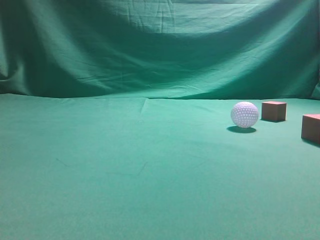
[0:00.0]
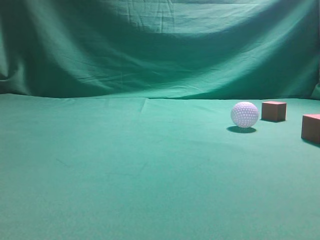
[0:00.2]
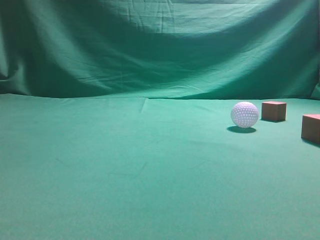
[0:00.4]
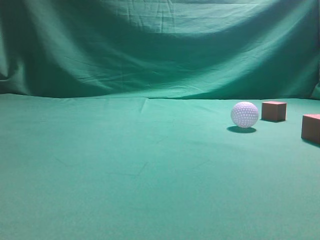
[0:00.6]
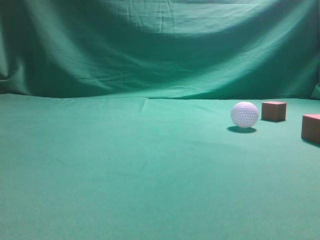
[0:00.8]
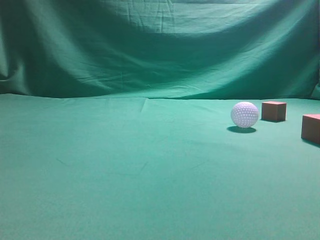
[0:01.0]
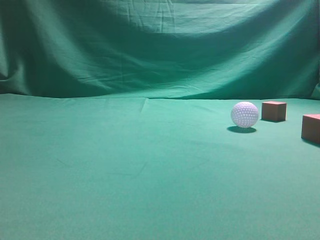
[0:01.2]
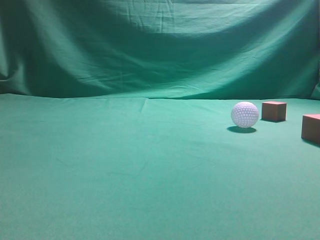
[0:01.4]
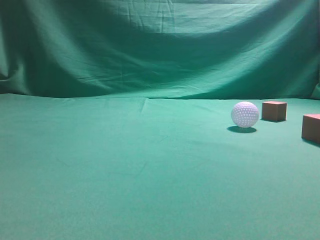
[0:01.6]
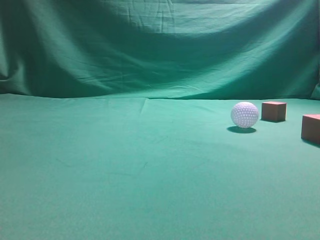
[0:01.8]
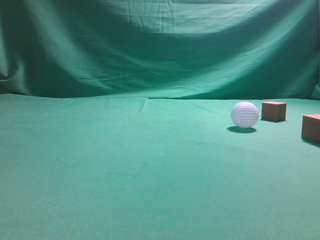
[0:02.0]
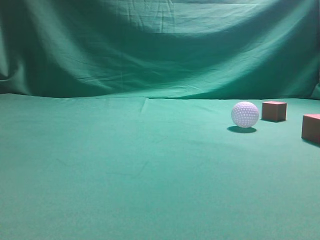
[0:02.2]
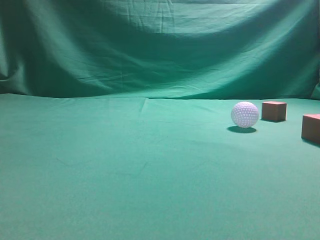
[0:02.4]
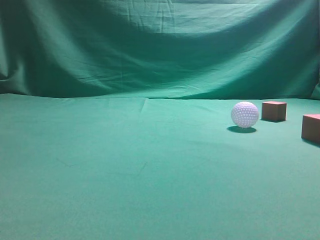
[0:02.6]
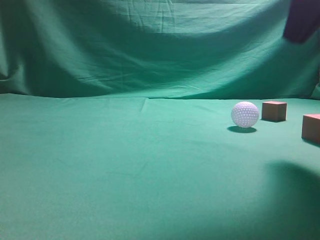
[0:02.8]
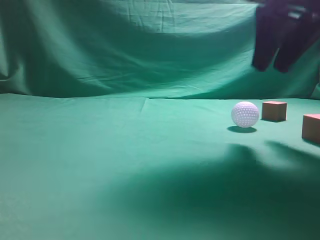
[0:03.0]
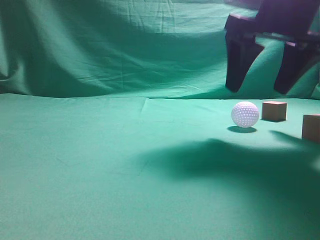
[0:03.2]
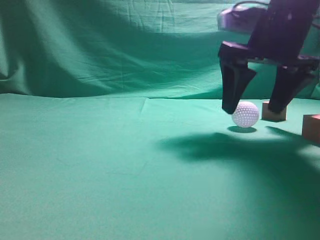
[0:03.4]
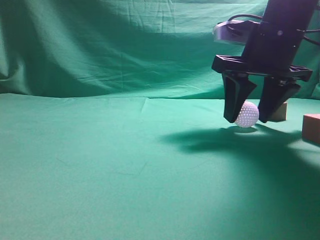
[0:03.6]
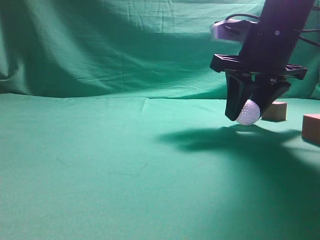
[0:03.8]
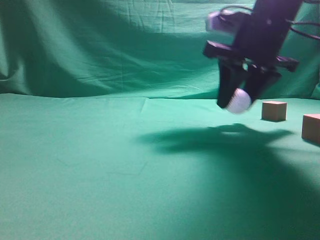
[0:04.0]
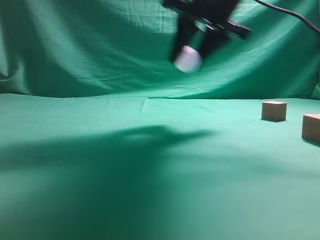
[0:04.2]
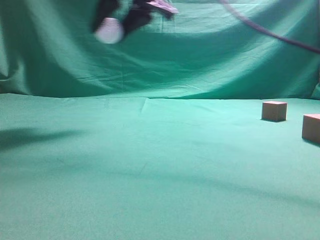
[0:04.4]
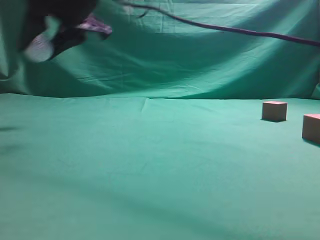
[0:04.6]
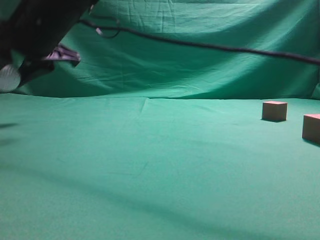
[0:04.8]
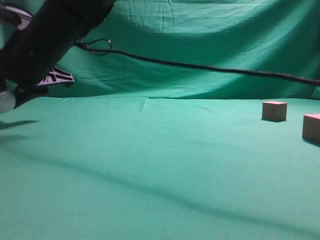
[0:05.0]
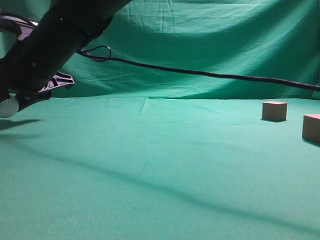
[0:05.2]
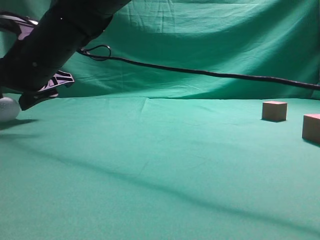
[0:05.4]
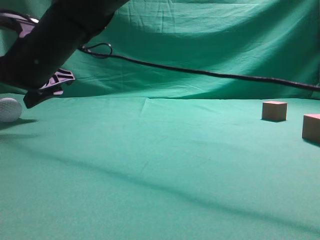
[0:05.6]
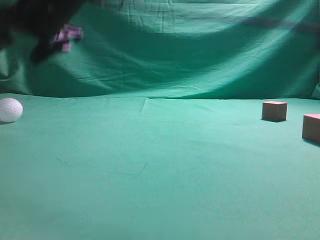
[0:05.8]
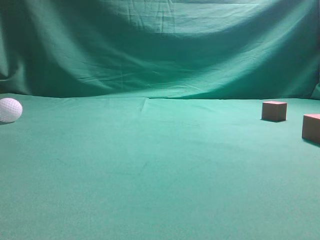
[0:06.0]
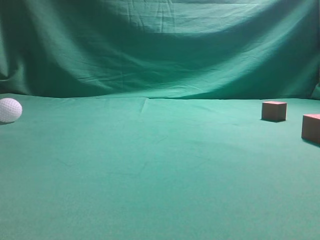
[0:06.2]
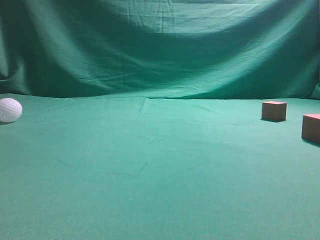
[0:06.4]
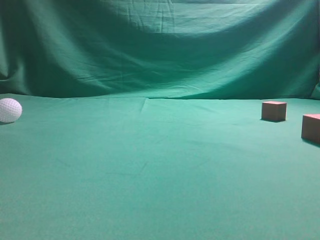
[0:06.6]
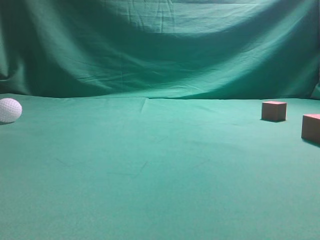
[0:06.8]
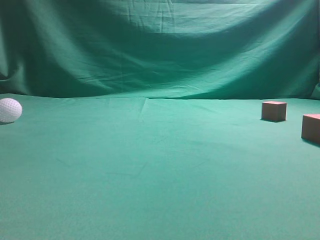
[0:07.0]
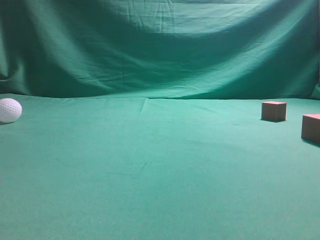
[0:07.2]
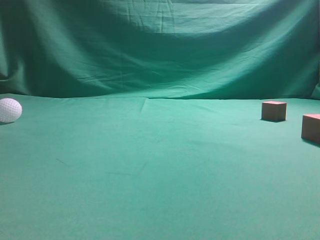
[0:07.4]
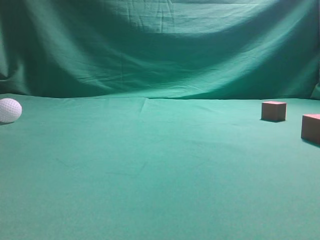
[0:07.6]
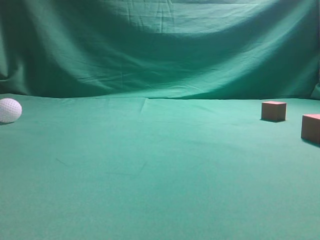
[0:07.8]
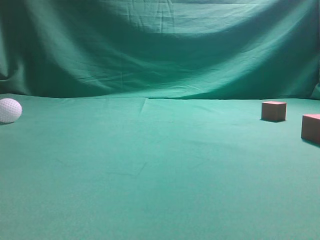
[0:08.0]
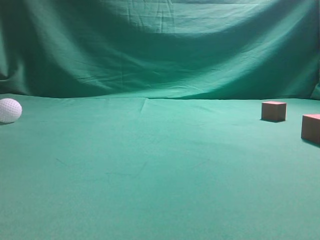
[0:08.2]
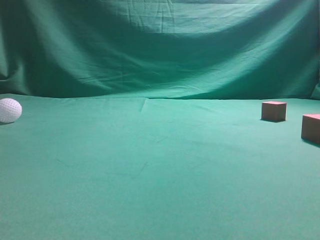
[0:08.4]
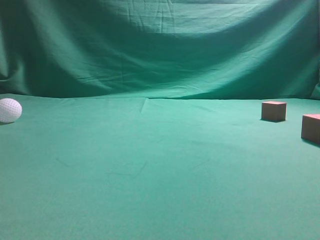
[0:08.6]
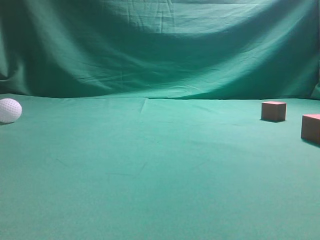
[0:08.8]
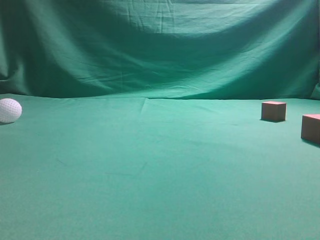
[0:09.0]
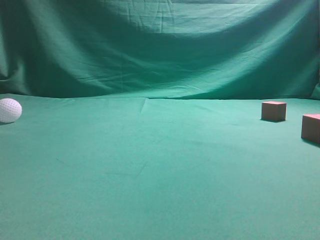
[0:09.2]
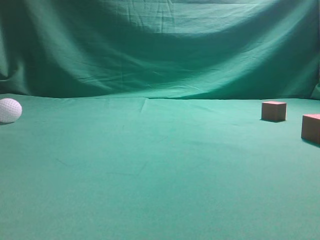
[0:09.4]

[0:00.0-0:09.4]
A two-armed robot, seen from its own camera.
Step, 0:00.0 to 0:04.0: Grasp the spherical object on the right side.
0:01.6 to 0:03.2: The right gripper is displaced forward and to the left by about 30 cm, and opens up.
0:03.2 to 0:04.8: The right gripper heads to the left, covering approximately 30 cm, and closes.
0:04.8 to 0:06.2: The right gripper goes some 25 cm upward and to the right, and closes its fingers.
